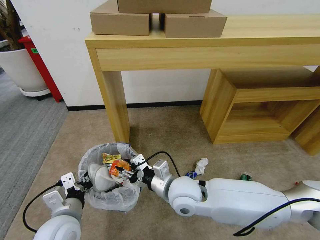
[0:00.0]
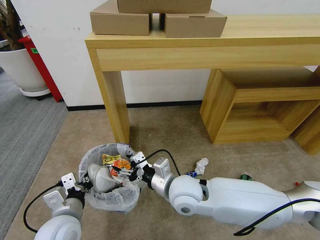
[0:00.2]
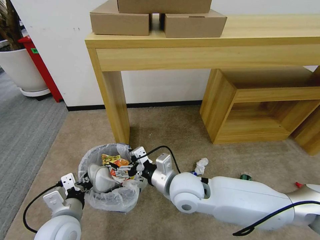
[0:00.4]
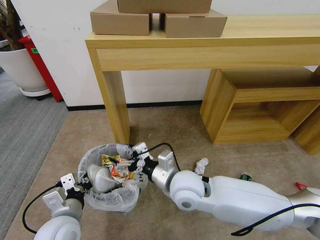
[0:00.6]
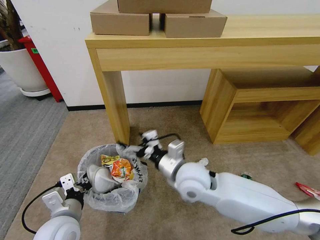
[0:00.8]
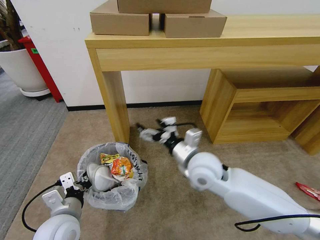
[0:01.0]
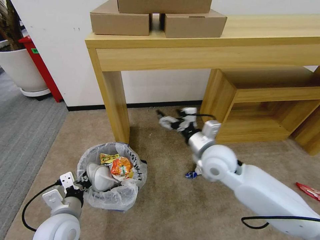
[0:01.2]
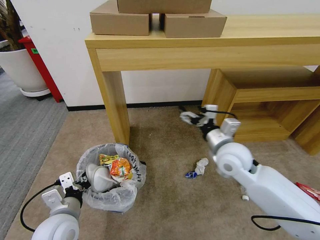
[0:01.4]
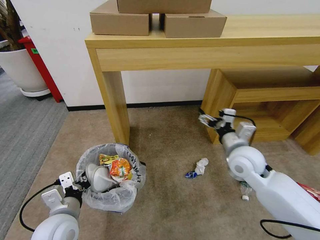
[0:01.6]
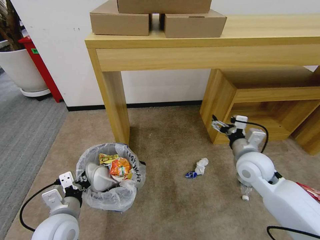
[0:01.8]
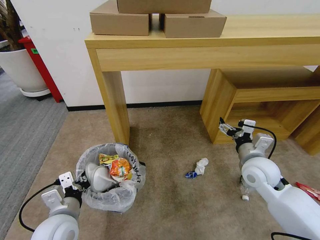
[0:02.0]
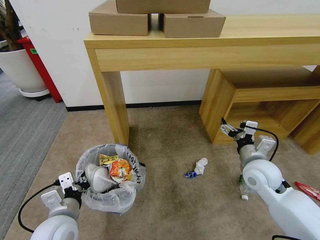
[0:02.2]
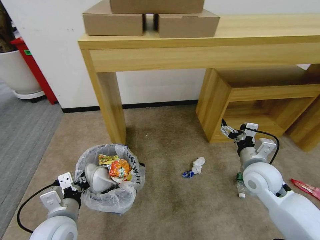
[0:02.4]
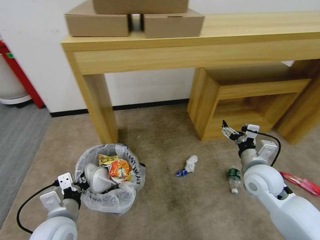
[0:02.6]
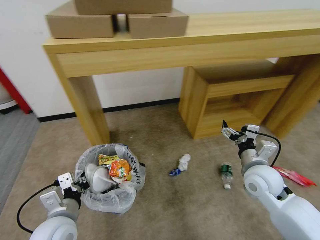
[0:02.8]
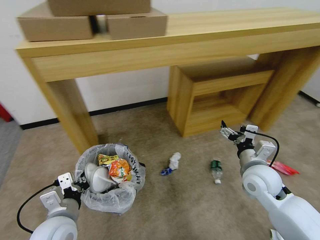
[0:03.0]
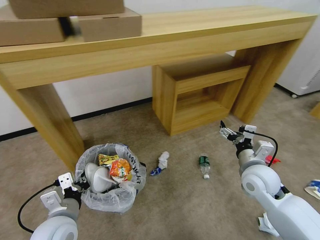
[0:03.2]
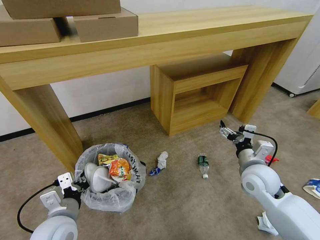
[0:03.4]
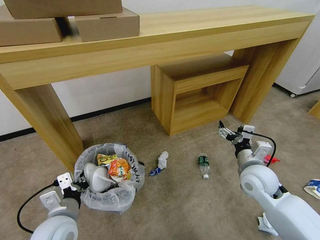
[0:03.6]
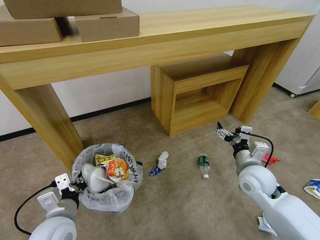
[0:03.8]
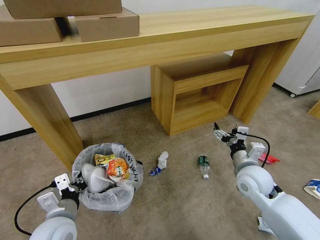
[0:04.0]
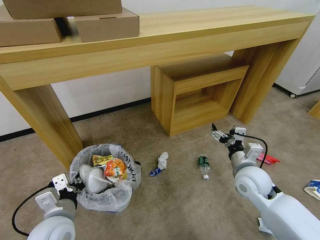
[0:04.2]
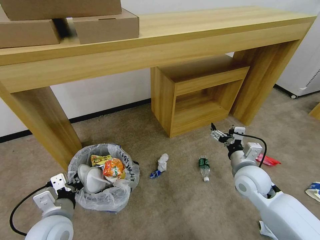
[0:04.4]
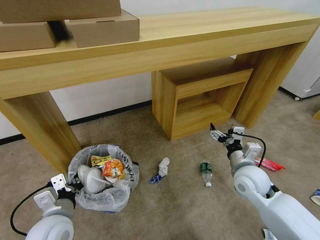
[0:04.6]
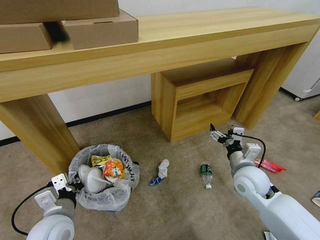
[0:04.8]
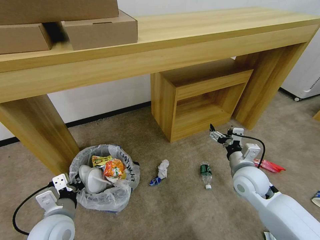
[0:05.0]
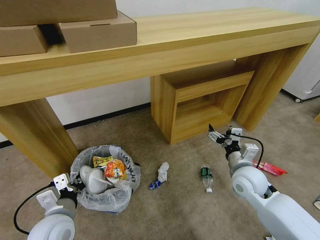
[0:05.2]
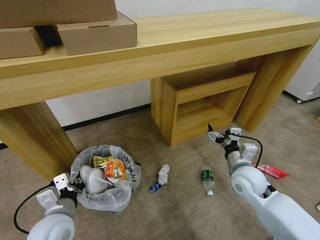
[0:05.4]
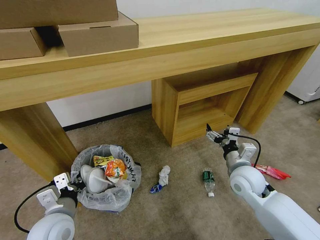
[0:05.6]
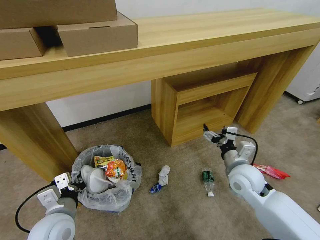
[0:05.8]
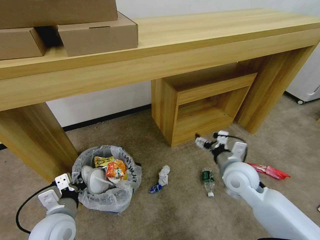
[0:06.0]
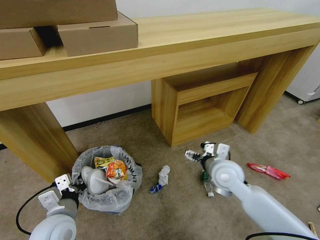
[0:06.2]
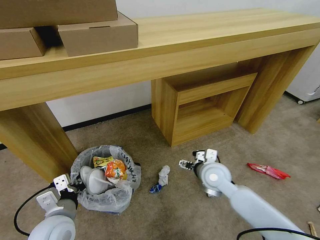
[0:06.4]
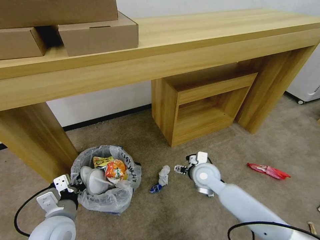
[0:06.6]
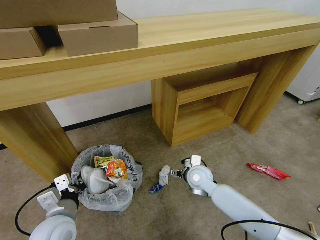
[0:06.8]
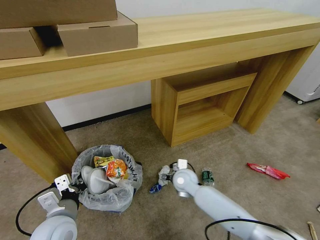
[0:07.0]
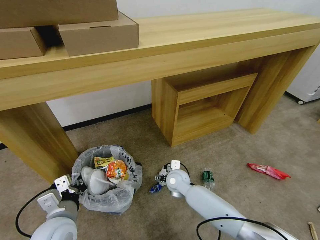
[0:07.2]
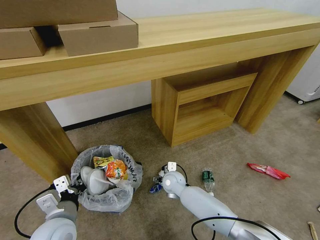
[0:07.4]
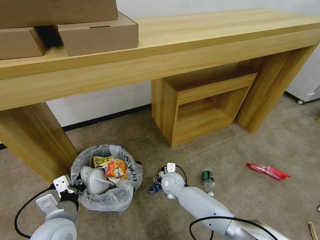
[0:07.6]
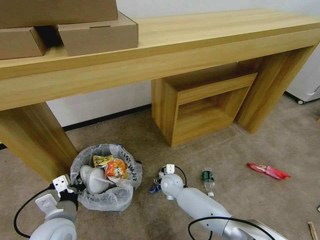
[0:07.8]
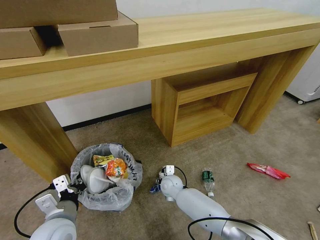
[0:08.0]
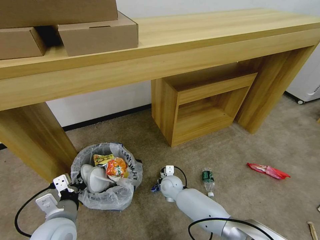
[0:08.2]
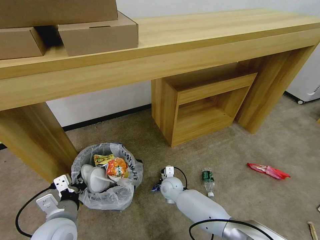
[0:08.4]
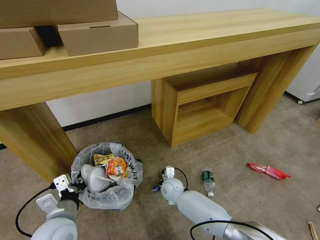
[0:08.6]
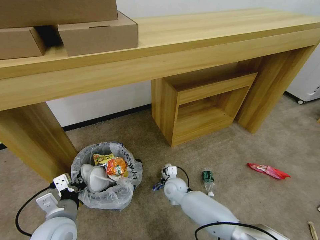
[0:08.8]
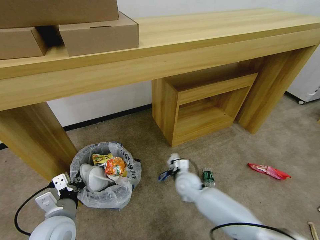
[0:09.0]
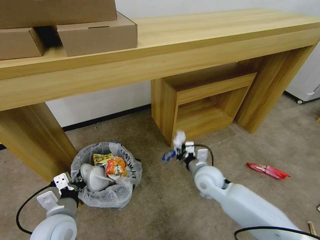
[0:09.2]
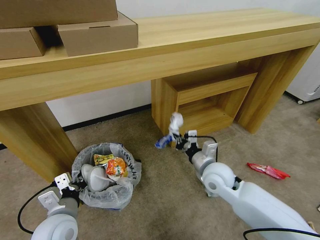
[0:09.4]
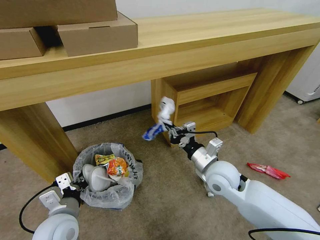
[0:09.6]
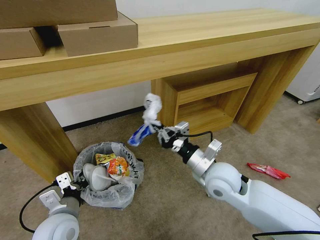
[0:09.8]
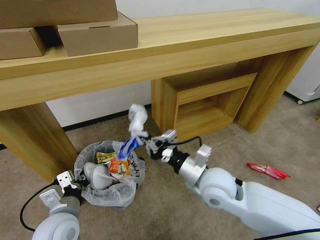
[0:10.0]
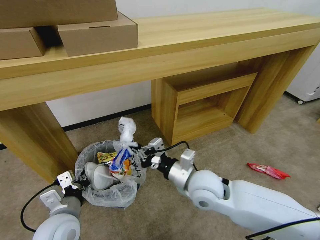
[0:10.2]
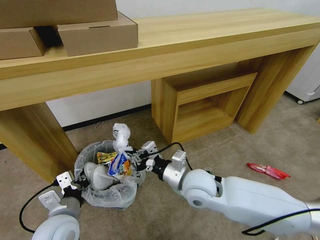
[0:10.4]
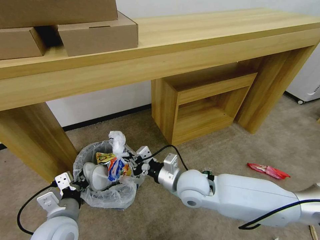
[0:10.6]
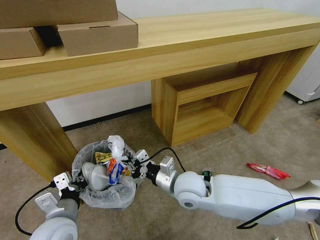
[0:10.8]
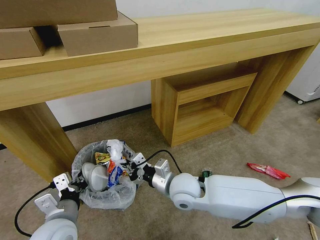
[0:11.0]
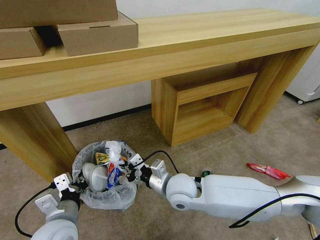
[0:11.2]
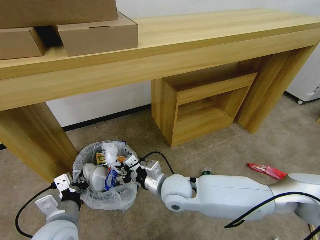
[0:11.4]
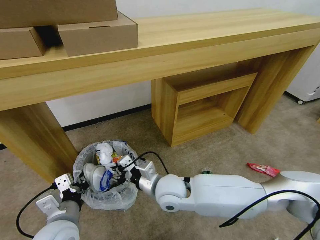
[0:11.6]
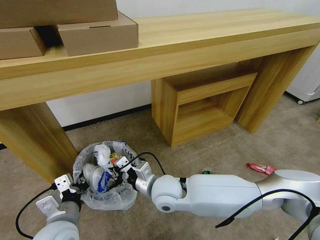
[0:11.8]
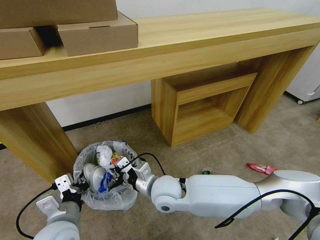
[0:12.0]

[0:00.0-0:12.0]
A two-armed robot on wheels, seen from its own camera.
Task of the whole recording: Pick up the trash bin and place the garbage on the floor into it.
0:00.0 to 0:01.6: The right gripper heads to the right and forward, covering roughly 20 cm, and opens its fingers.
0:01.6 to 0:03.0: The right gripper shifts by approximately 5 cm.
0:04.4 to 0:06.0: The right gripper moves roughly 5 cm.
0:06.0 to 0:07.6: The right gripper heads downward and to the left, covering approximately 25 cm.
0:07.6 to 0:09.0: The right gripper goes some 5 cm to the right, and closes.
0:09.0 to 0:10.4: The right gripper moves upward and backward, some 20 cm.
0:10.4 to 0:12.0: The right gripper goes roughly 10 cm to the left.

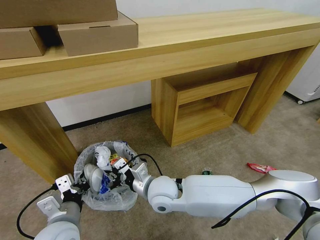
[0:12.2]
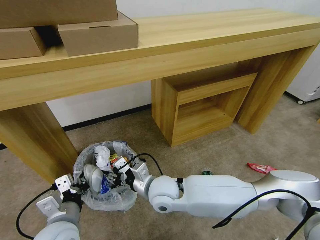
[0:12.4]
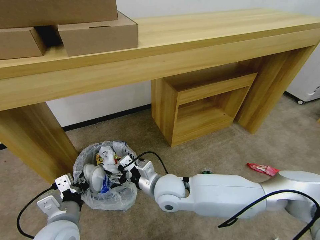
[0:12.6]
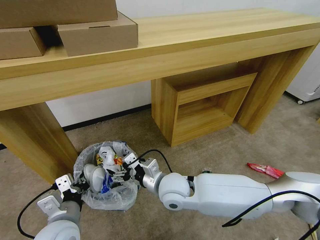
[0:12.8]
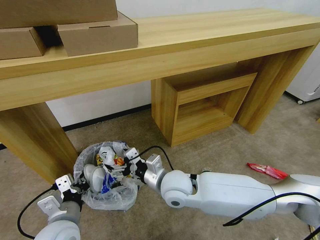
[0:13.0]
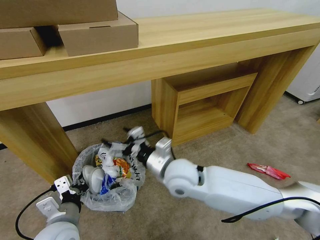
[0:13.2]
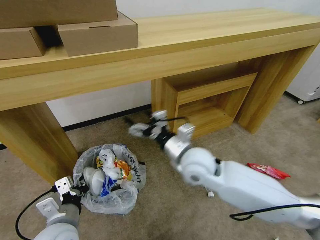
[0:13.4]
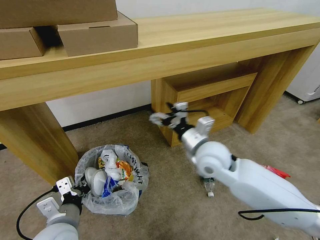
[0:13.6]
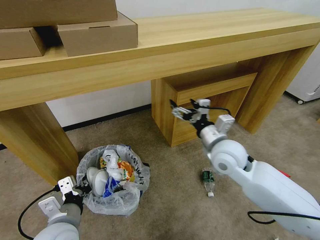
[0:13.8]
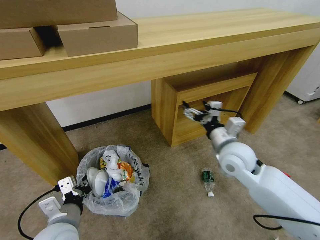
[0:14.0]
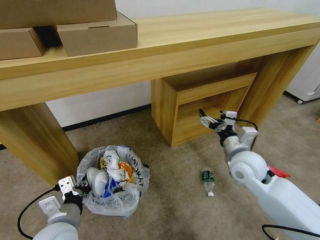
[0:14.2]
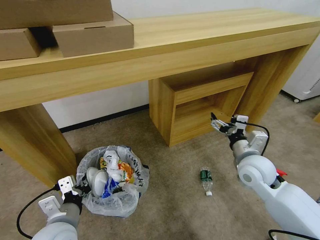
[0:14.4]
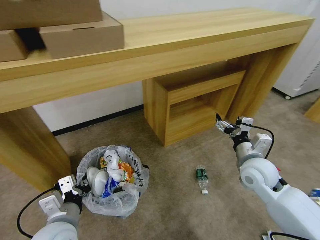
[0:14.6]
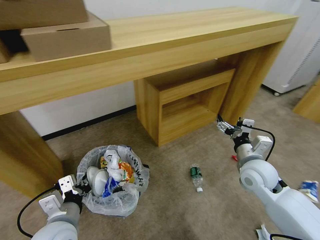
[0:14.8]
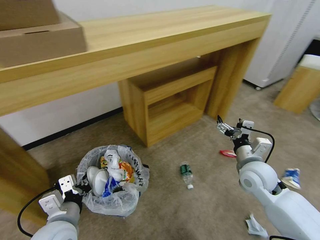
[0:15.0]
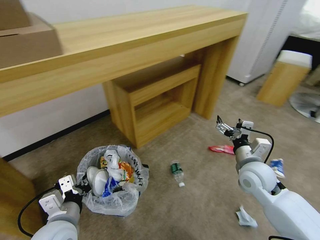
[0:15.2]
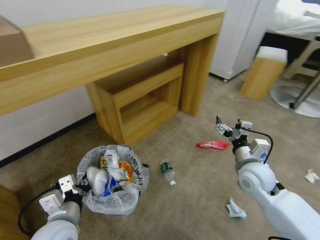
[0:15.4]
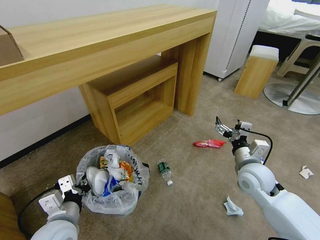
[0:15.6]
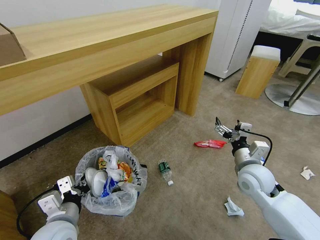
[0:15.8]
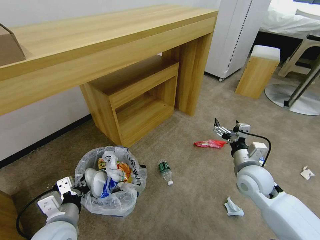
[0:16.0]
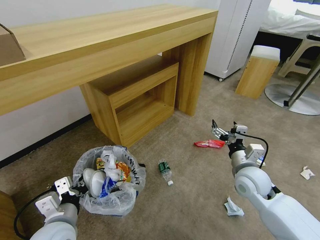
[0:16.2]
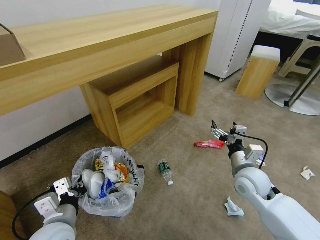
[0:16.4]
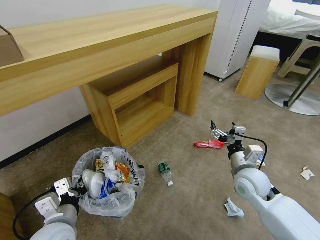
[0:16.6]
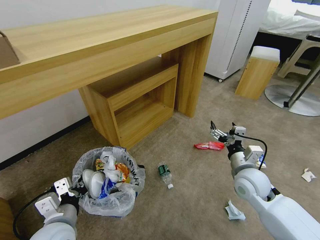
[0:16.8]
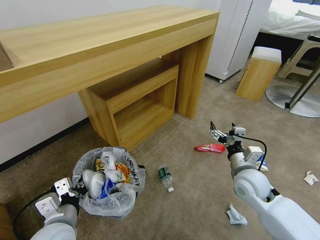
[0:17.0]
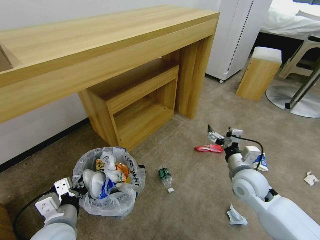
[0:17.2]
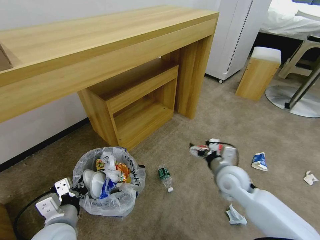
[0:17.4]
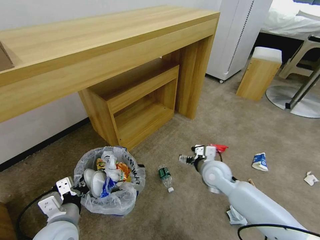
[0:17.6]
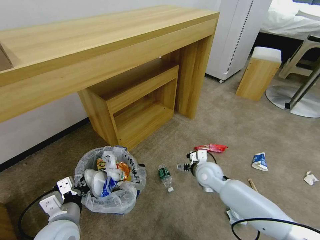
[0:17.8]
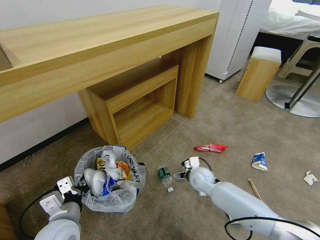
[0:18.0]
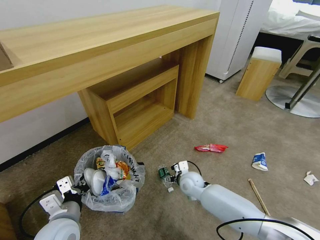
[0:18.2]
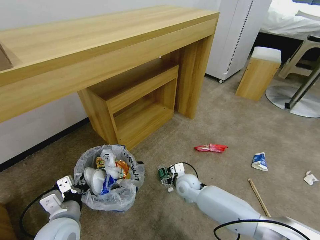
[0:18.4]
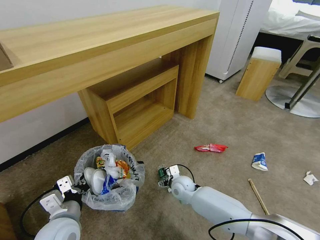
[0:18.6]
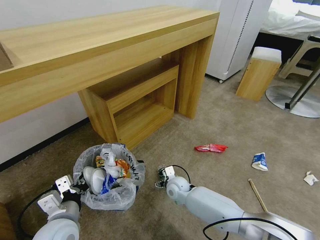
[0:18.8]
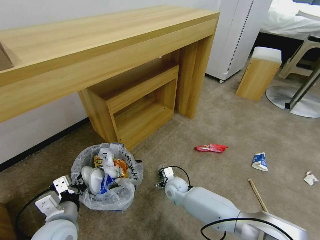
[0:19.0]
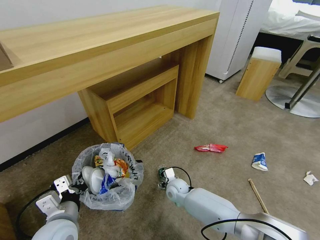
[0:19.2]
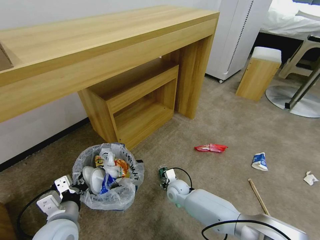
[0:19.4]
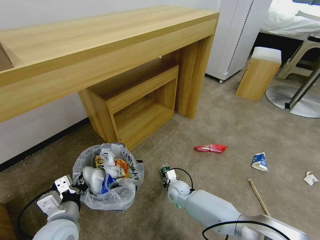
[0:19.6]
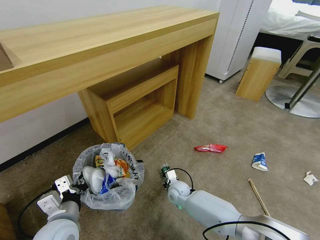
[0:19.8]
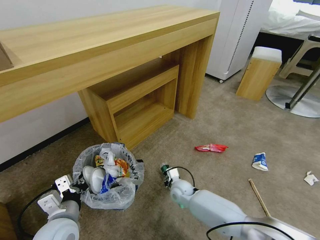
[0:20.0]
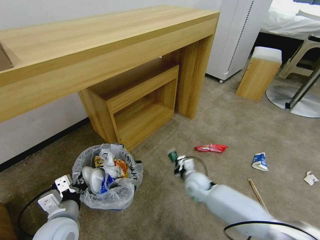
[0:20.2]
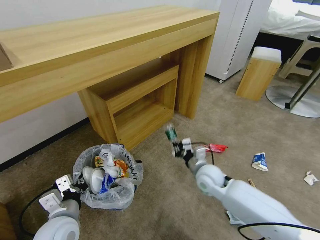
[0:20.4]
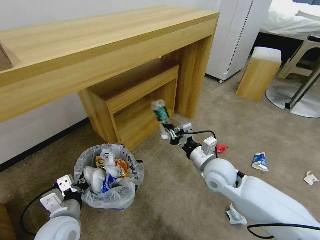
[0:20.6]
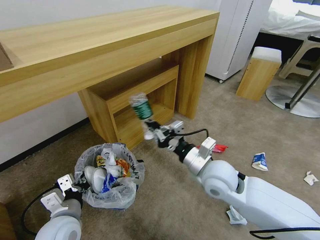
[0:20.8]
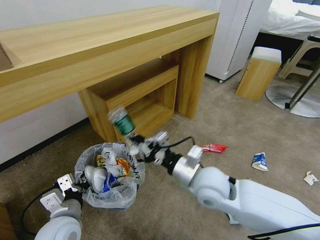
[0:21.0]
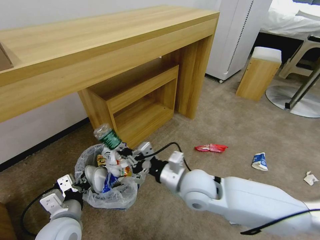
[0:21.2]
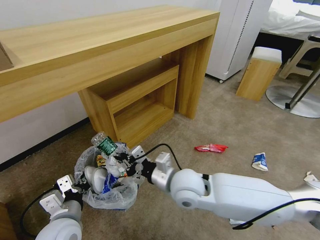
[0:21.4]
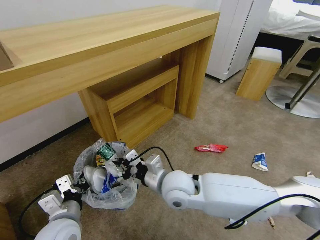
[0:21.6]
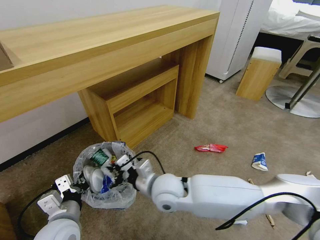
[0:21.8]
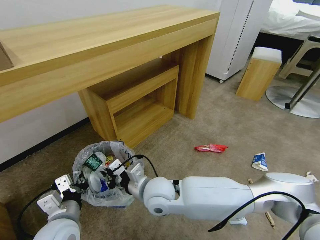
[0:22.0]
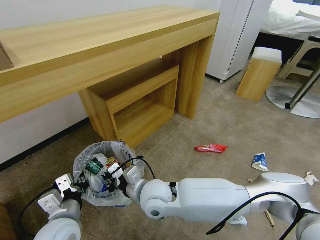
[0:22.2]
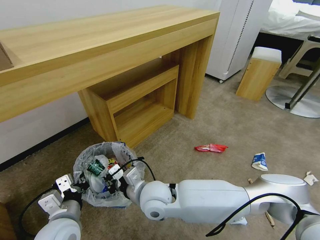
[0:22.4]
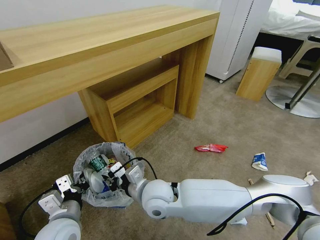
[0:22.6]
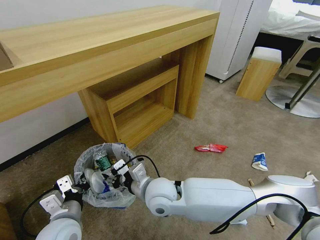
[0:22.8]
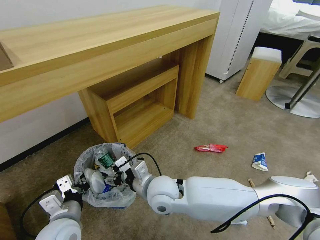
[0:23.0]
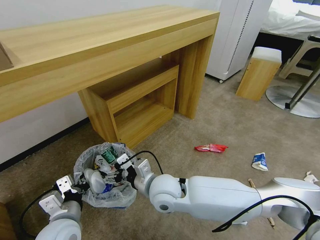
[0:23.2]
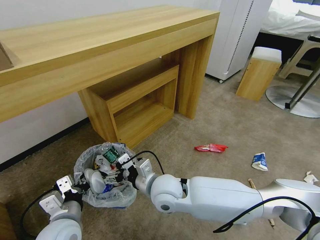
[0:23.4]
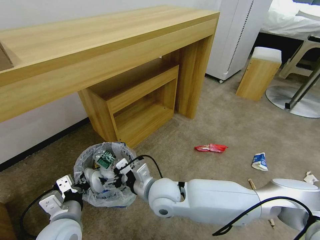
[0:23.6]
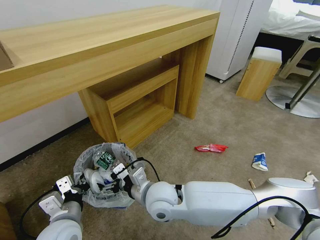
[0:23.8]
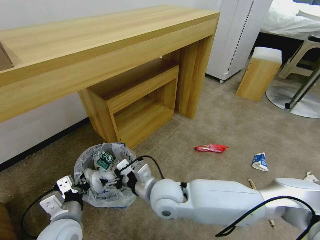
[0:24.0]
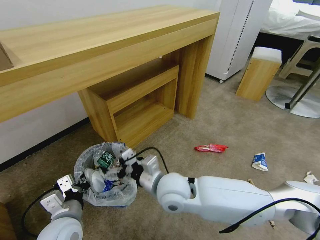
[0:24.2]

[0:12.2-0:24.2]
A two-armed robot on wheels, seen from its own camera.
Task of the whole recording: Pick up the trash bin and place the garbage on the floor into it.
0:12.2 to 0:13.8: The right gripper travels to the right and upward by roughly 20 cm, and opens up.
0:13.8 to 0:15.2: The right gripper shifts approximately 15 cm to the right and downward.
0:16.6 to 0:18.2: The right gripper goes approximately 20 cm to the left, downward and forward.
0:18.2 to 0:19.8: The right gripper shifts about 5 cm downward, and closes.
0:19.8 to 0:21.2: The right gripper is displaced upward by some 25 cm.
0:21.2 to 0:22.6: The right gripper is displaced to the left by about 10 cm.
0:22.6 to 0:24.2: The right gripper changes place by approximately 5 cm, and opens.
